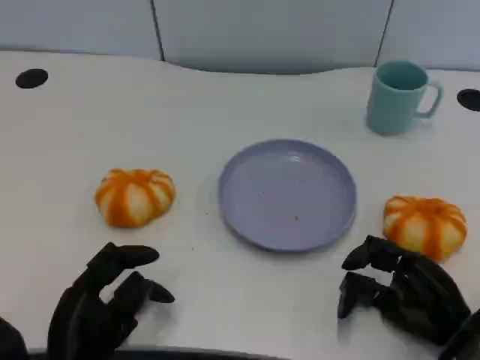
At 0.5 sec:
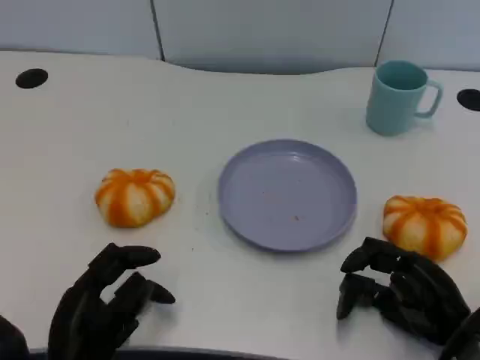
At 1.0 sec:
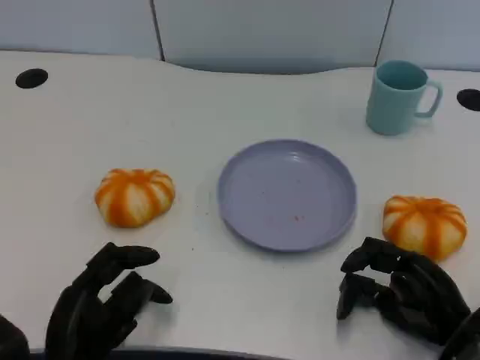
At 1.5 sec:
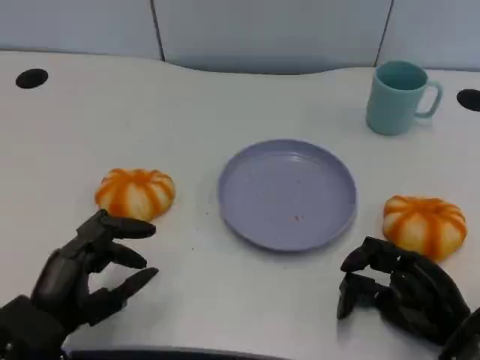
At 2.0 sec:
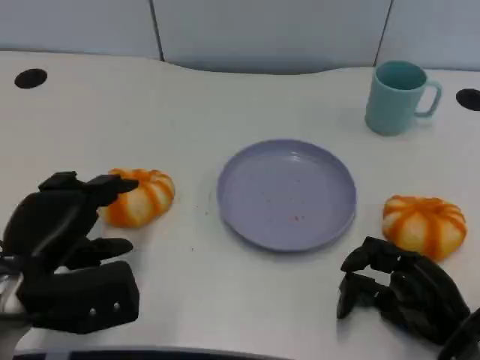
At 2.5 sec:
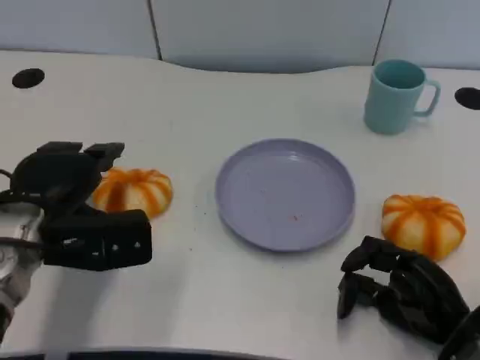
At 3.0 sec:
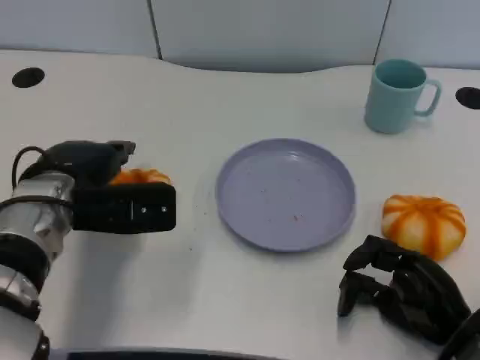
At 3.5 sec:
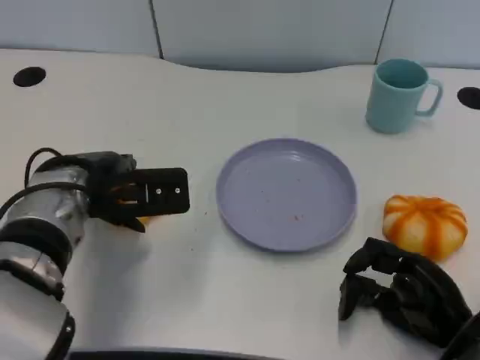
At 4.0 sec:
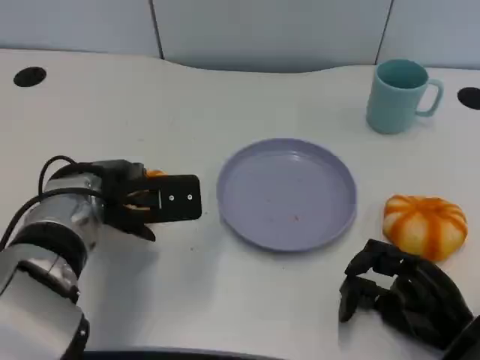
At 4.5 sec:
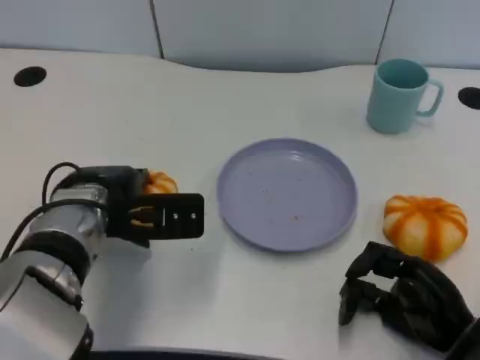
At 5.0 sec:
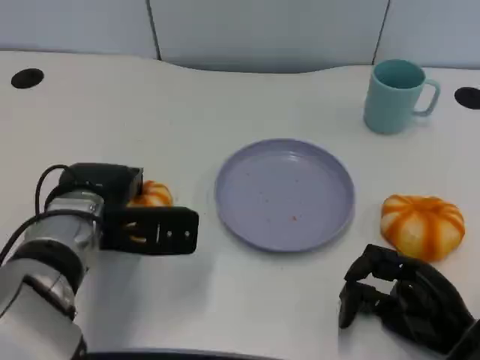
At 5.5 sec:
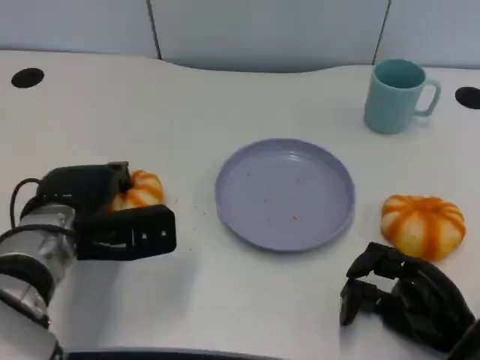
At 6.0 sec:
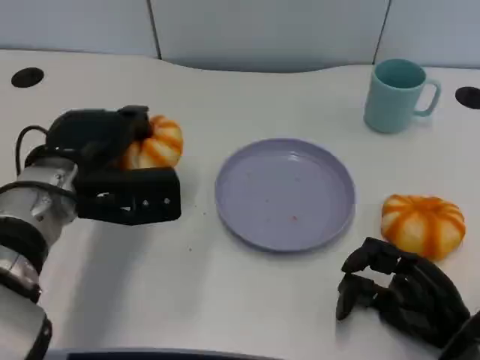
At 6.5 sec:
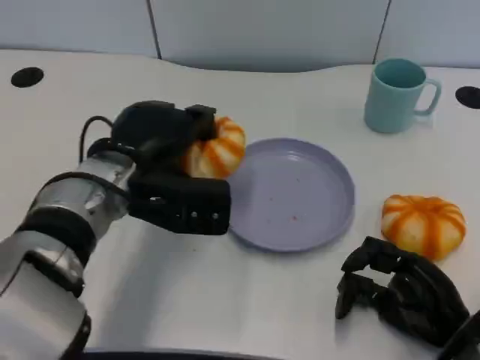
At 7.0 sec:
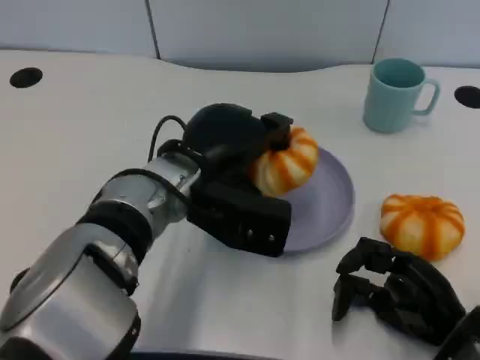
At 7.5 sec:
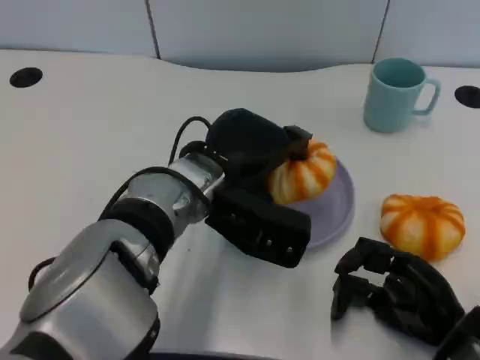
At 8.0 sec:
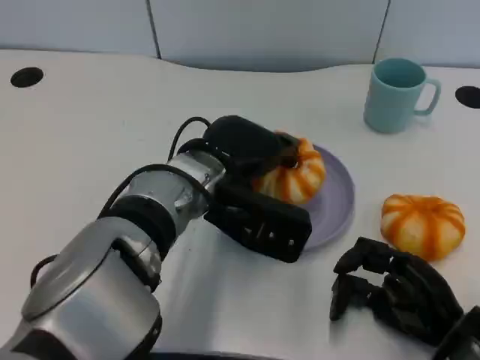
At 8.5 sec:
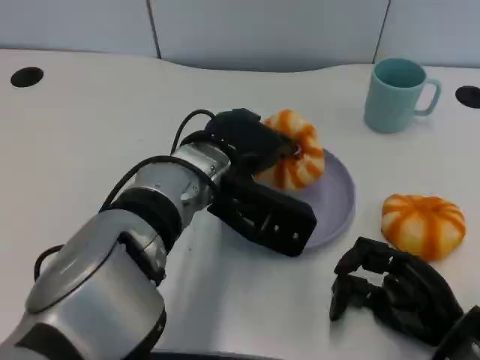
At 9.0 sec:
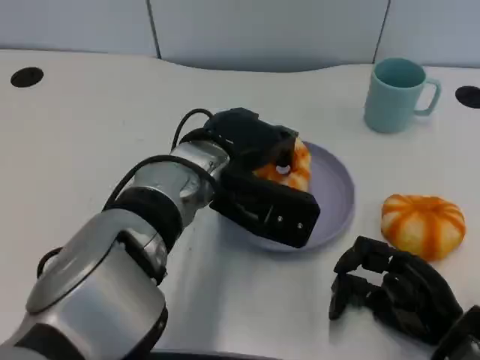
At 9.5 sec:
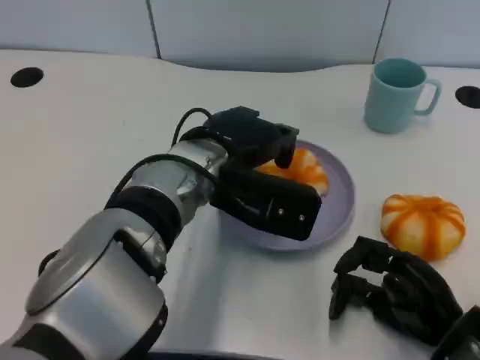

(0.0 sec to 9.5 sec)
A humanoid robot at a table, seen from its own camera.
Task of the whole recording: Grasp the bread from the table and place it into the plate.
0.0 sec - 2.0 sec: The left hand heads upward and forward, covering roughly 10 cm.
2.0 sec - 4.0 sec: The left hand goes some 10 cm forward and to the right.
4.0 sec - 5.5 sec: There are only small adjustments of the hands.
5.5 sec - 7.5 sec: The left hand heads to the right, covering about 15 cm.
7.5 sec - 9.5 sec: The hands stay close to where they were, moving slightly.

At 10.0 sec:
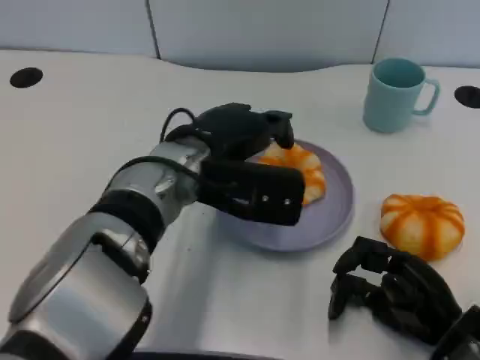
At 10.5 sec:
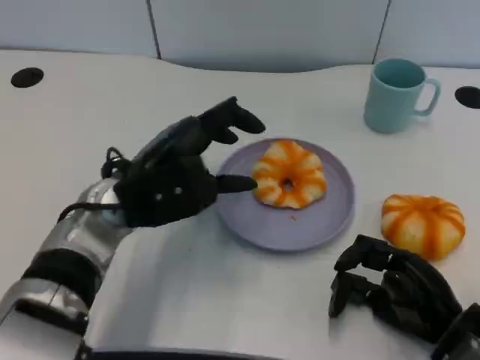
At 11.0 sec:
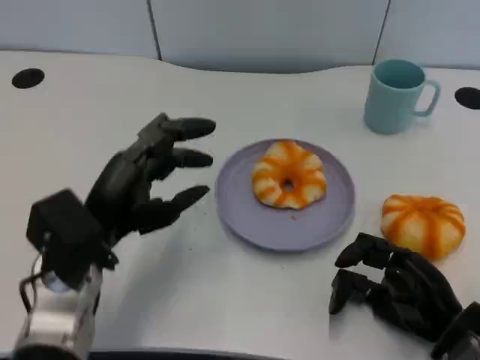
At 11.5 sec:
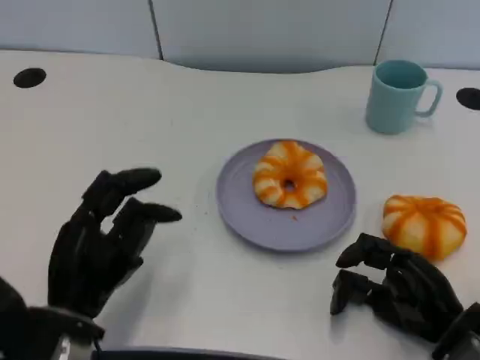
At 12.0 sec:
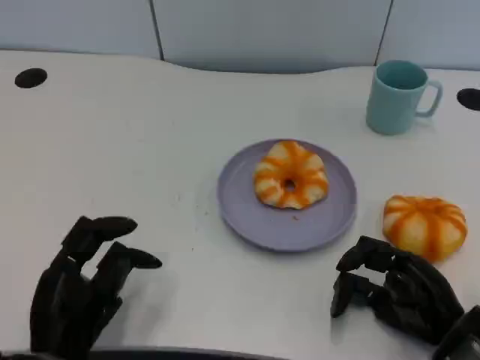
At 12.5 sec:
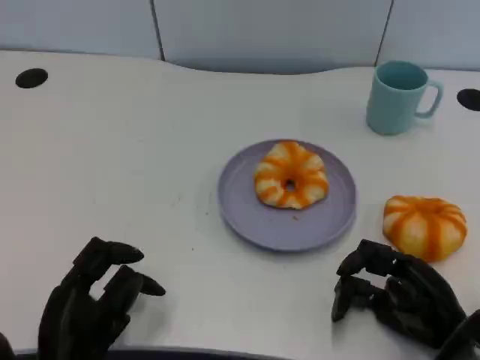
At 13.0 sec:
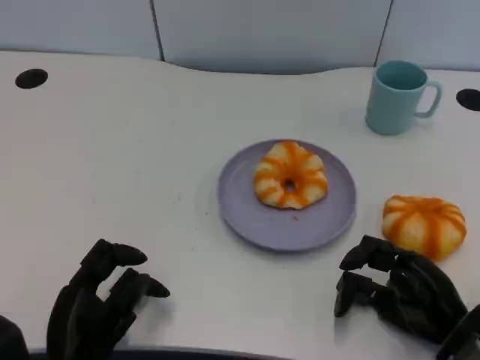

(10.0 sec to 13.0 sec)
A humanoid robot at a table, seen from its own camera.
Task of the whole recording: Grasp the bread from the table and place it into the plate.
10.0 sec - 11.5 sec: The left hand travels to the left, backward and downward by approximately 20 cm.
11.5 sec - 13.0 sec: The hands make only small movements.

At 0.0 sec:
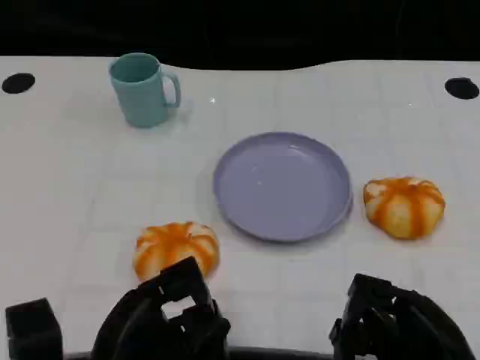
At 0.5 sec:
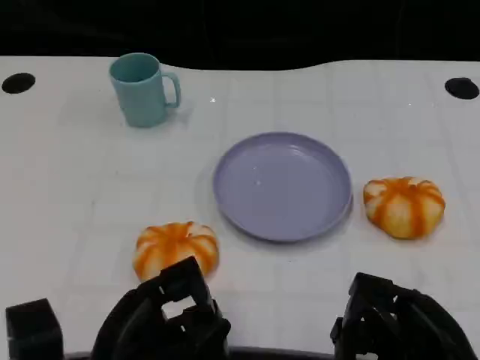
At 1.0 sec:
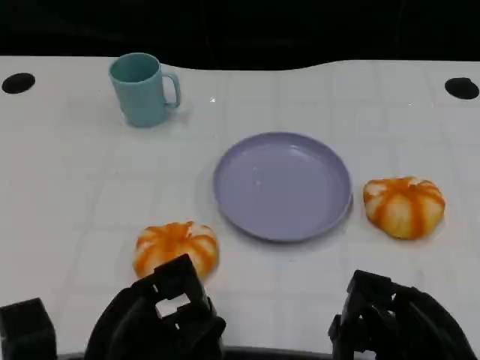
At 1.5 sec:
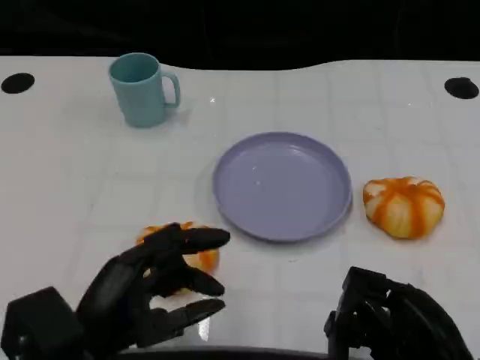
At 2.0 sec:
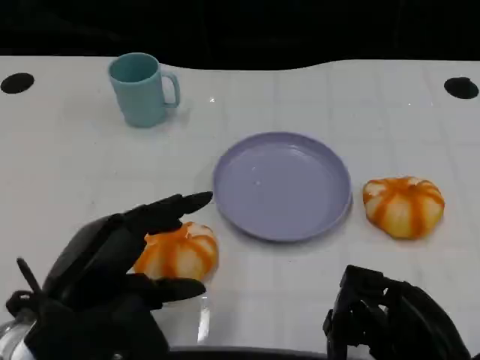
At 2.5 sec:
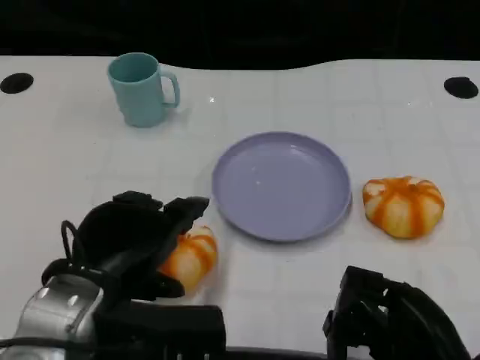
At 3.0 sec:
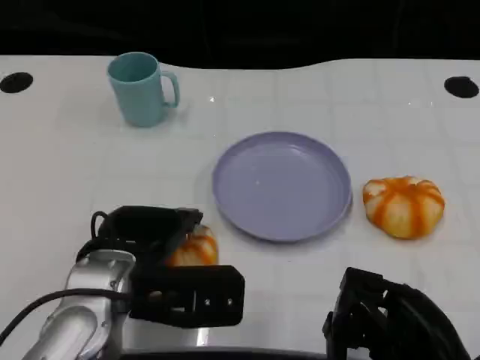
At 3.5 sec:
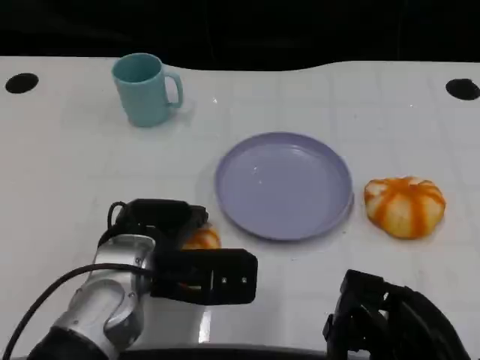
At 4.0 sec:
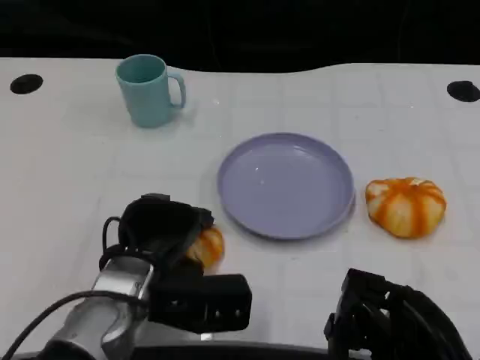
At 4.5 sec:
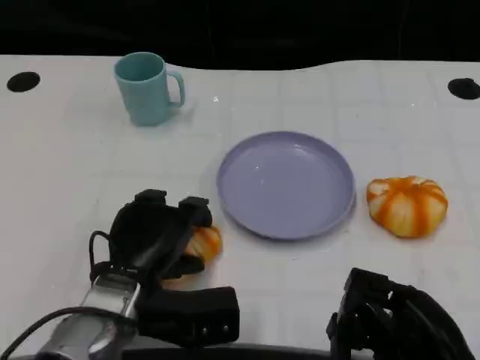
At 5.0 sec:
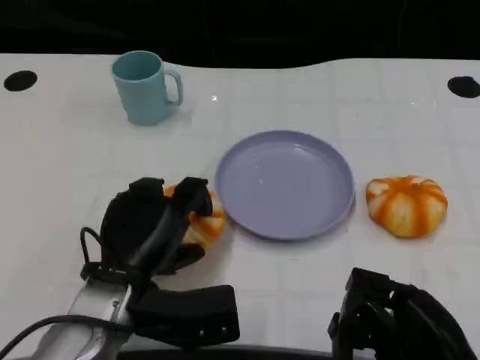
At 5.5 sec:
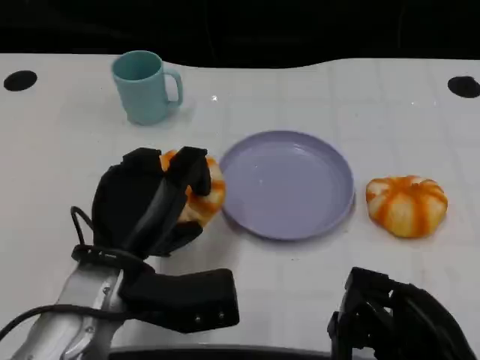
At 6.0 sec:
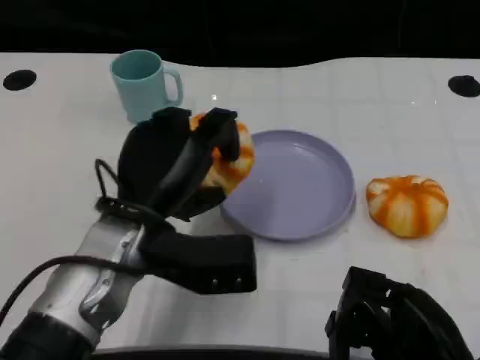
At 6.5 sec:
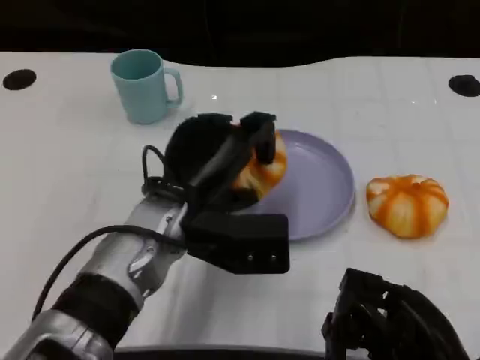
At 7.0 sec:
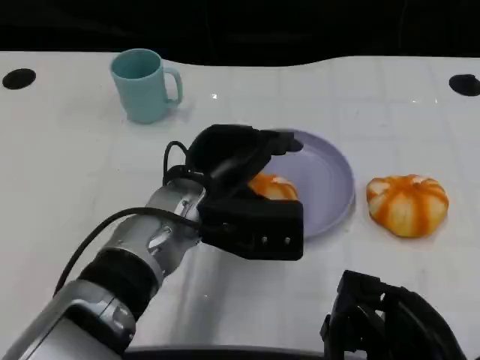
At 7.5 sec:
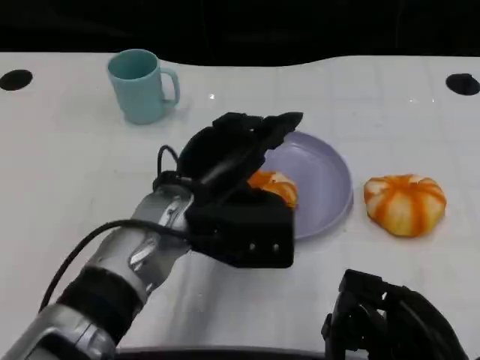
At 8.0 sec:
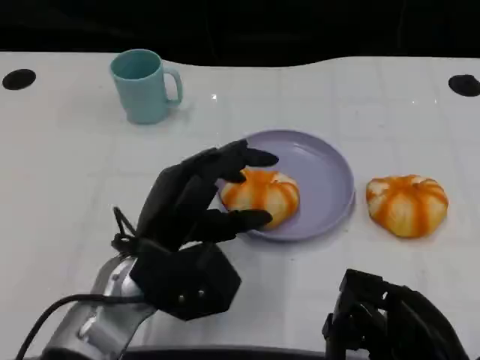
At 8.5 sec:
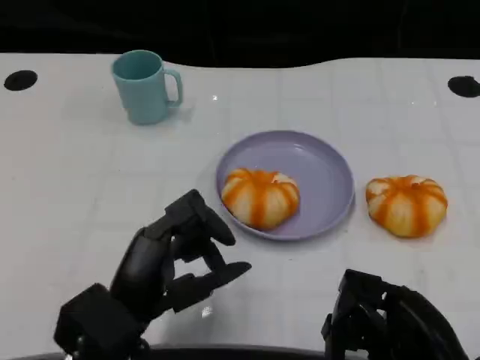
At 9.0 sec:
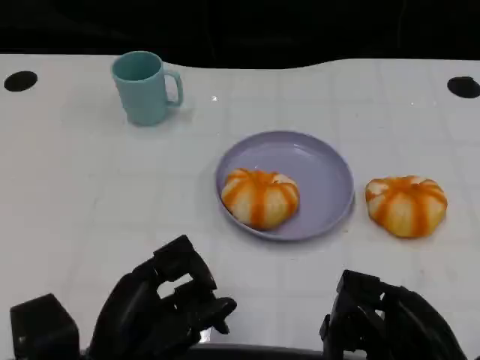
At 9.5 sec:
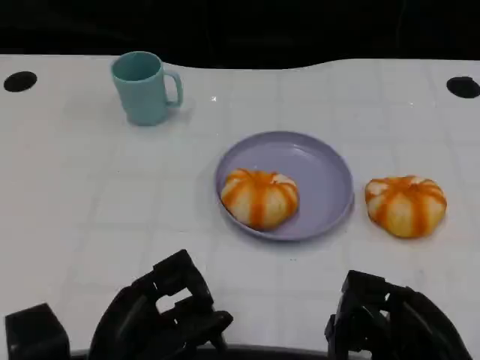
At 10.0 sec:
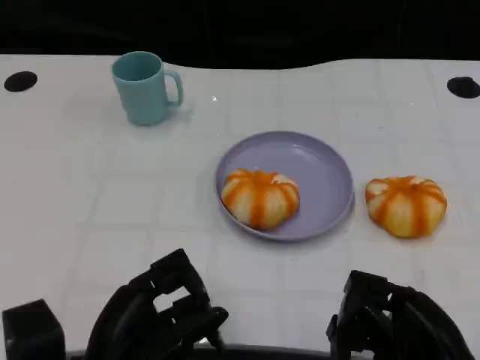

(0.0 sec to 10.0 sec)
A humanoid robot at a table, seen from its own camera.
Task of the whole recording: Grasp the bread from the table and place it into the plate.
0.0 sec - 2.0 sec: The left hand is displaced upward by about 10 cm.
2.0 sec - 4.0 sec: The left hand is displaced downward, forward and to the right by some 15 cm.
4.0 sec - 6.0 sec: The left hand heads upward, covering approximately 5 cm.
8.0 sec - 10.0 sec: The left hand goes roughly 10 cm backward and to the left.

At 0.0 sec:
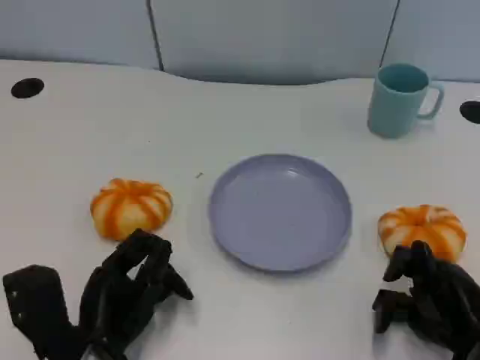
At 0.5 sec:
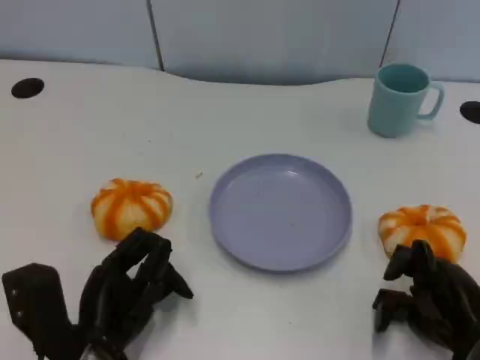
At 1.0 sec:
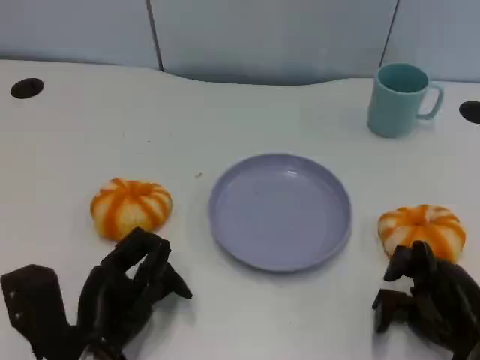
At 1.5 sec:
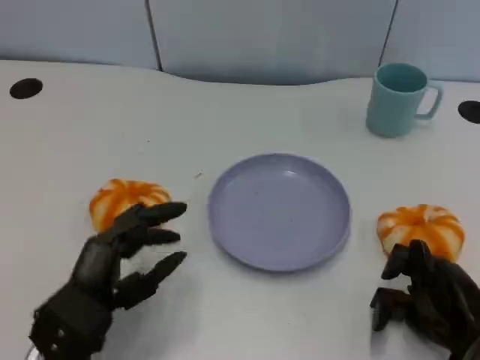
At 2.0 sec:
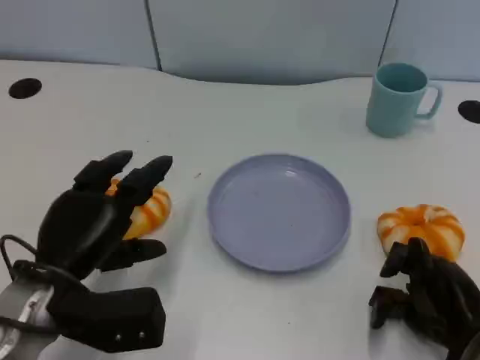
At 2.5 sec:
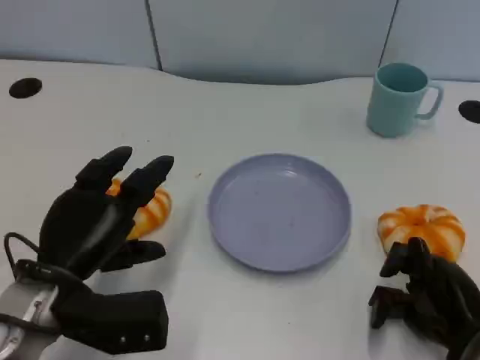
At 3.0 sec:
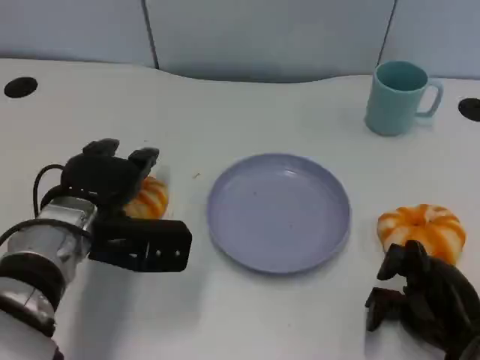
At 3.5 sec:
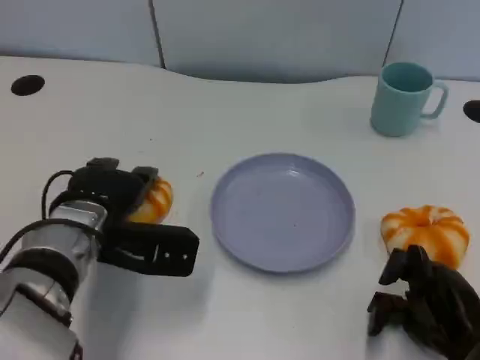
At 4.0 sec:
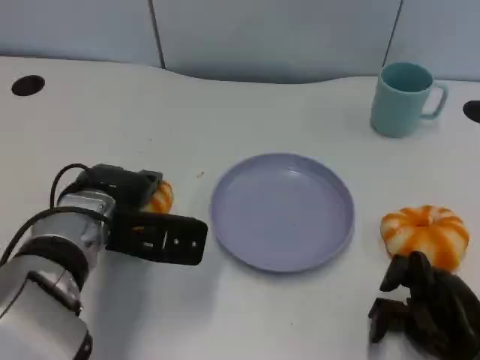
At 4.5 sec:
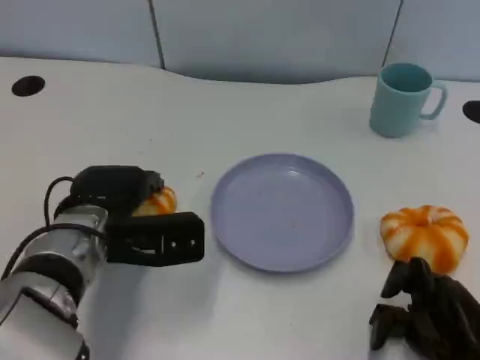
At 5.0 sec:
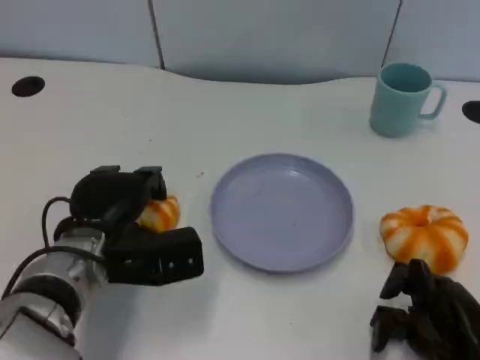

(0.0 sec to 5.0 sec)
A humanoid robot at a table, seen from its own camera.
Task of the whole recording: Grasp the bread from the table and place it into the plate.
0.0 sec - 2.5 sec: The left hand heads upward, covering about 5 cm.
2.5 sec - 5.0 sec: The left hand travels forward by about 5 cm.
